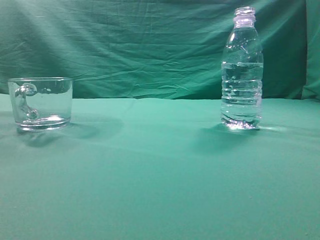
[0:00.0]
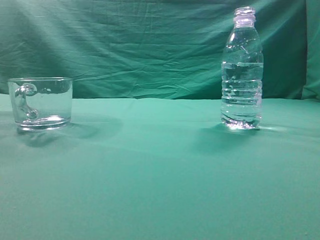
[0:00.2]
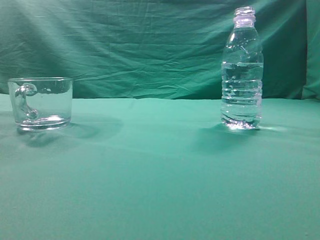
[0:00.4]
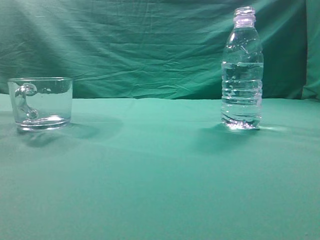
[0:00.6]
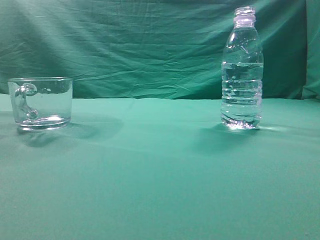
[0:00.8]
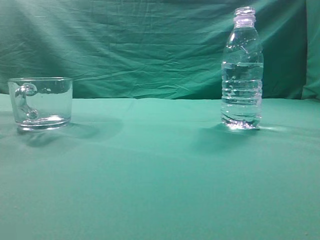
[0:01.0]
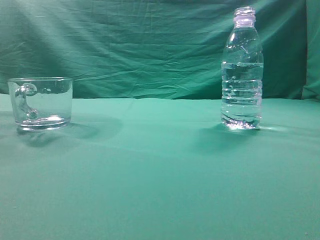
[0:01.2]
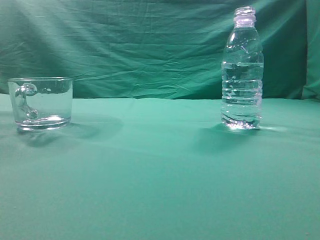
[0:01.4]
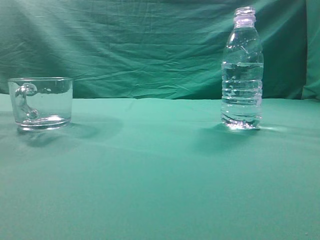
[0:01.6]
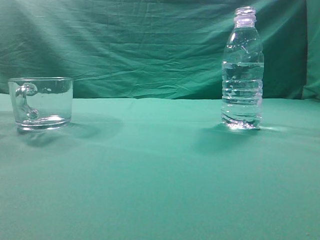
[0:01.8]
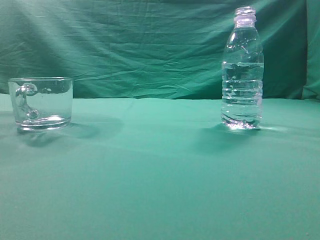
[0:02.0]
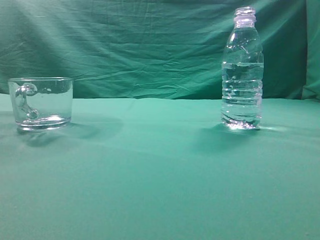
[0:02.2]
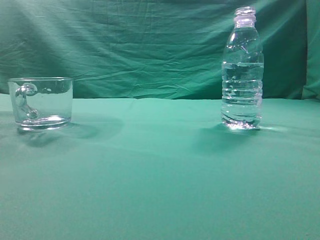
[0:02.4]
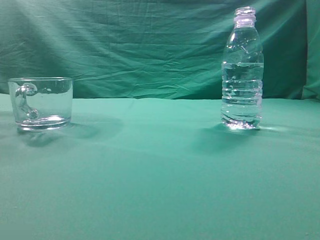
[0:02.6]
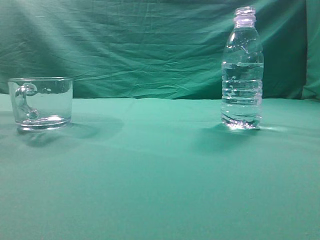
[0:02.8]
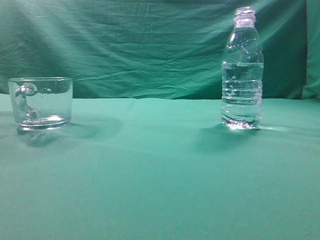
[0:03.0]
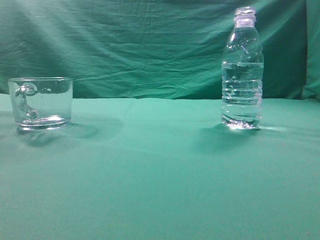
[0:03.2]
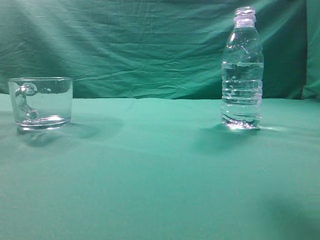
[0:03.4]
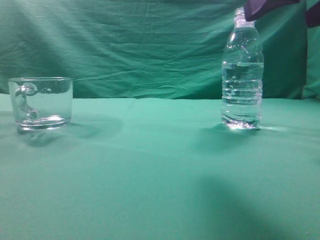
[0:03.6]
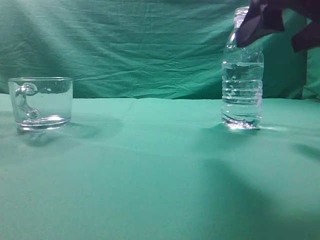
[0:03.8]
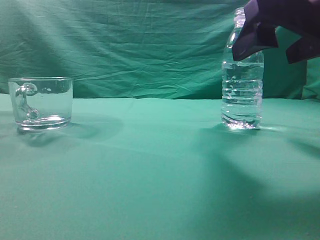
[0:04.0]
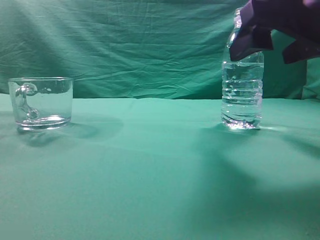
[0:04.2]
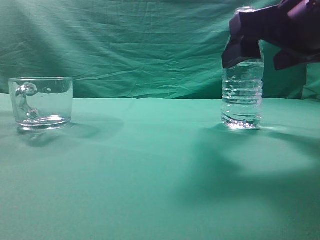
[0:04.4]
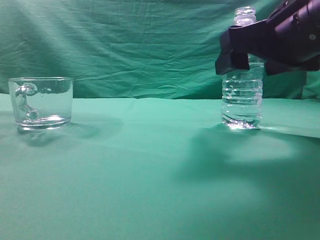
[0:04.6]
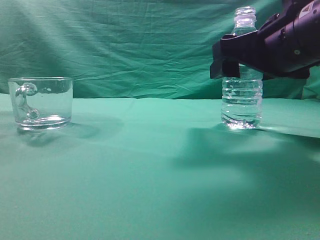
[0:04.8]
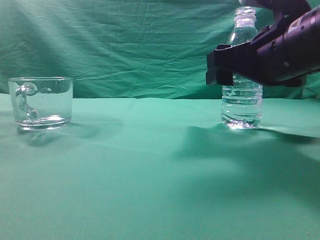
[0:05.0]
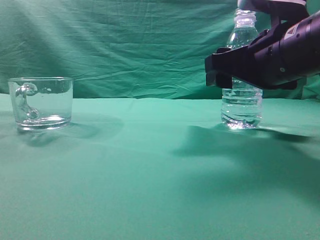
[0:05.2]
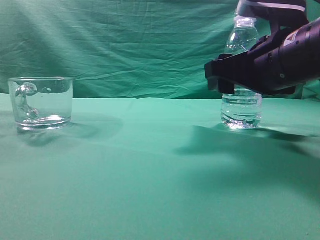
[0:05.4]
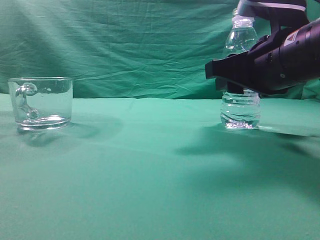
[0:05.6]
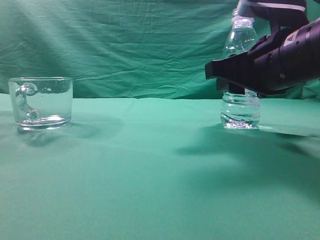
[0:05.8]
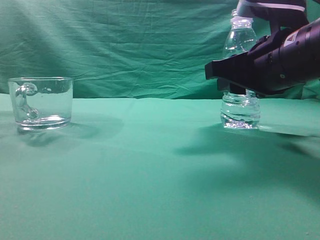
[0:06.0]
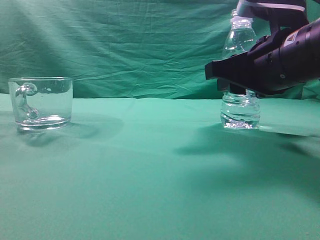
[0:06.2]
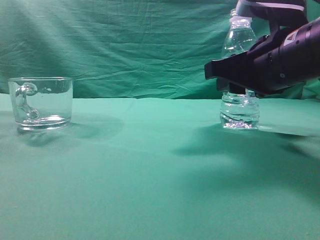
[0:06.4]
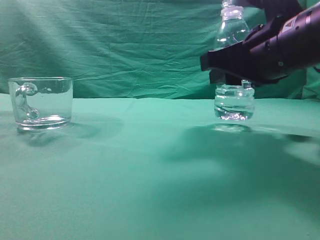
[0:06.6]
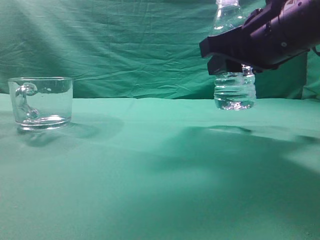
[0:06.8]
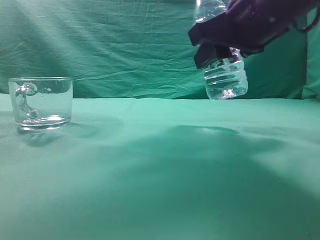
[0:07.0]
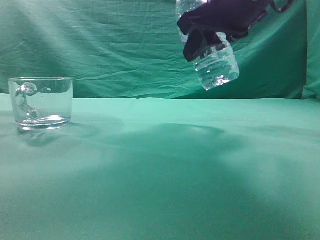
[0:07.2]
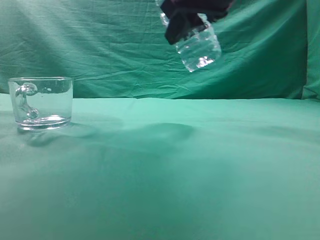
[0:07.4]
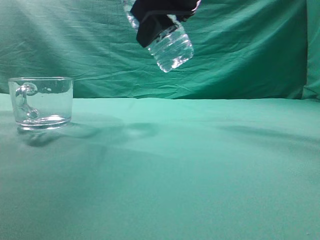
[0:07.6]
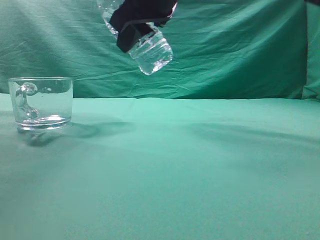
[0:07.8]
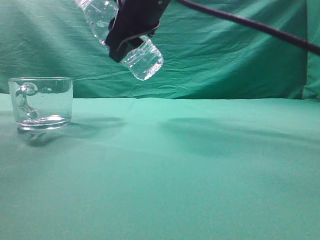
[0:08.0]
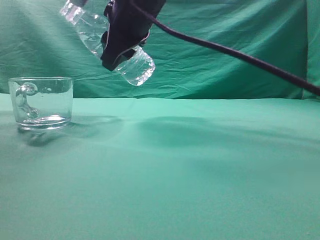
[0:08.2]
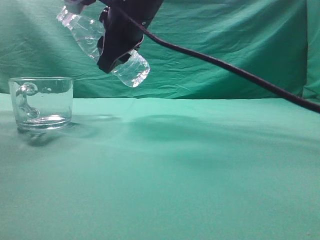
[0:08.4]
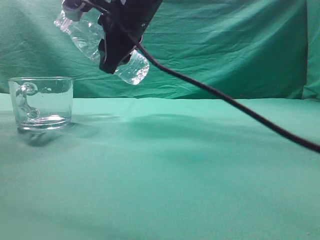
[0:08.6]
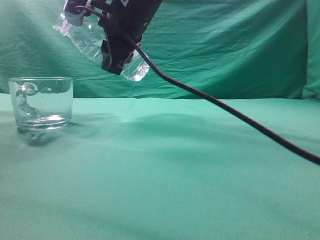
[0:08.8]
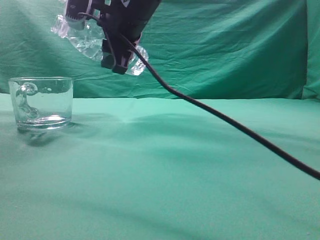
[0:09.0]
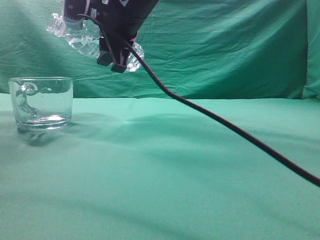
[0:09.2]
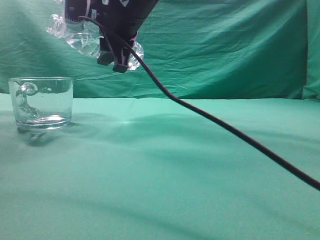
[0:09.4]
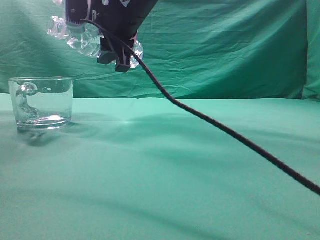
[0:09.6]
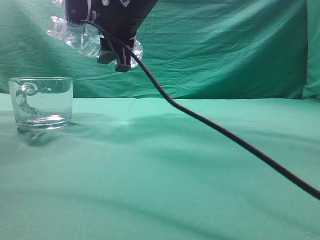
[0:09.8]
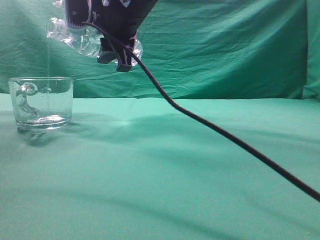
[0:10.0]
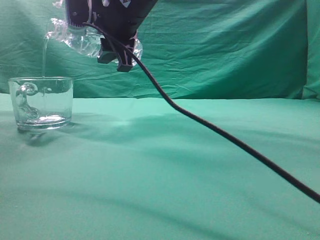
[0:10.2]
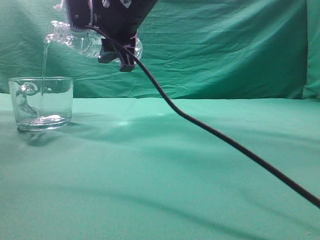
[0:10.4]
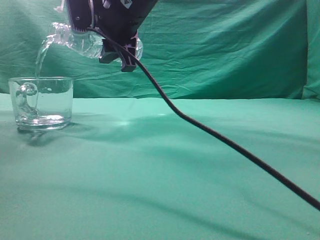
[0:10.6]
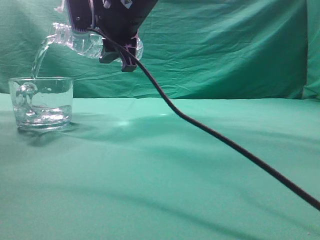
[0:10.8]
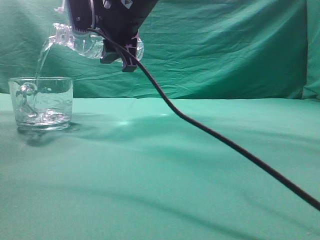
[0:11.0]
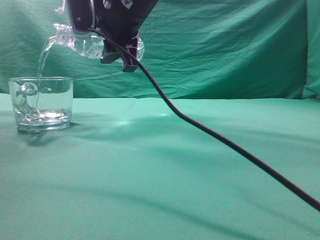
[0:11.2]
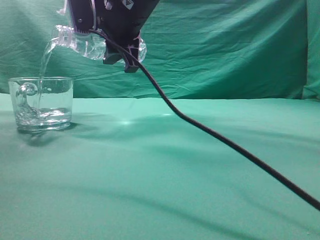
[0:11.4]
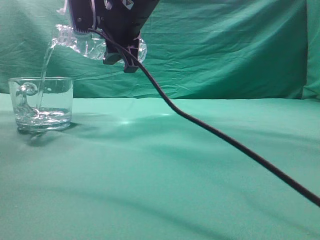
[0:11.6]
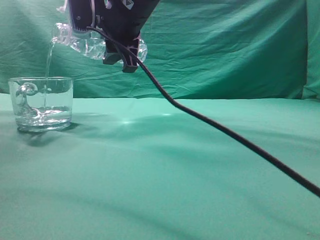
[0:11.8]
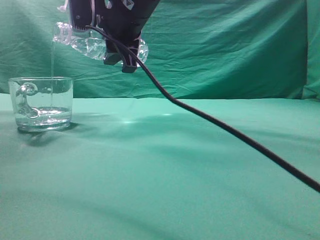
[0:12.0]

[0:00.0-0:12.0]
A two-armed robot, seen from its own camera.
Task of the whole recording: pick up the water bottle and pour the water in it into the glass.
Step, 0:00.0 to 0:06.8: Grasp the mineral water bottle.
0:03.0 to 0:04.4: The right gripper heads forward, downward and to the left, covering about 15 cm, and opens its fingers.
0:04.4 to 0:06.0: The right gripper moves approximately 5 cm, and closes.
0:06.0 to 0:07.6: The right gripper travels upward and to the left by approximately 15 cm.
0:07.6 to 0:09.0: The right gripper goes approximately 10 cm to the left and forward.
0:09.0 to 0:10.4: The grippers move only a little.
0:10.4 to 0:12.0: Both grippers stay about where they are.

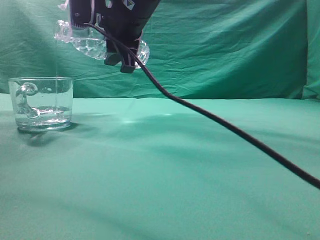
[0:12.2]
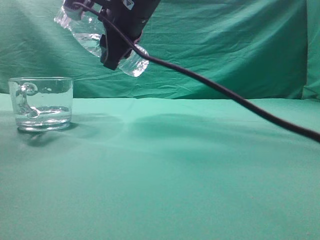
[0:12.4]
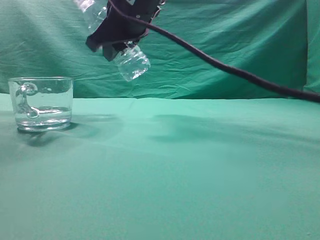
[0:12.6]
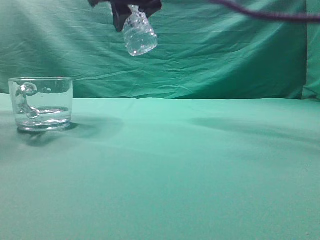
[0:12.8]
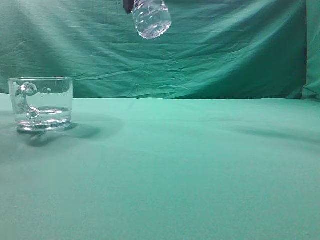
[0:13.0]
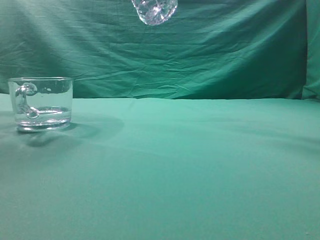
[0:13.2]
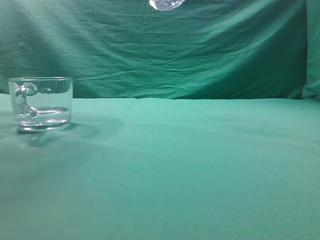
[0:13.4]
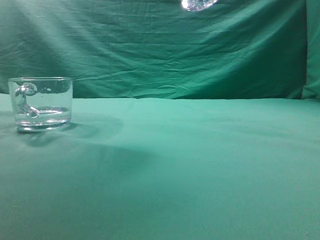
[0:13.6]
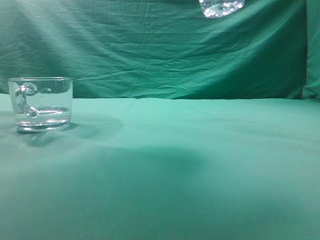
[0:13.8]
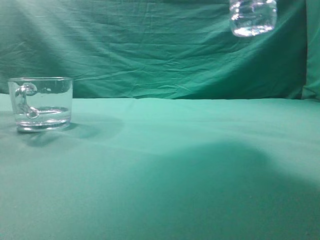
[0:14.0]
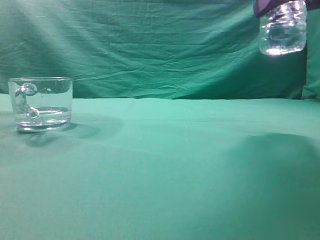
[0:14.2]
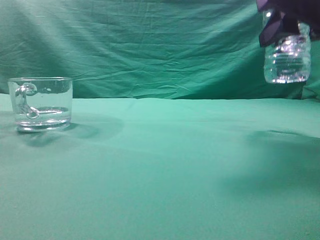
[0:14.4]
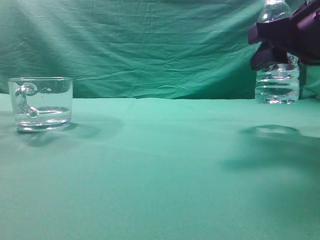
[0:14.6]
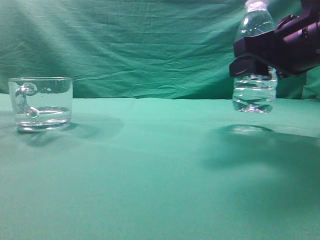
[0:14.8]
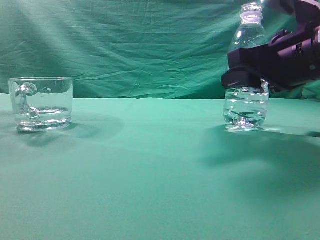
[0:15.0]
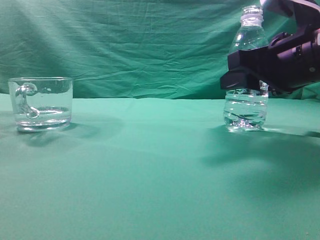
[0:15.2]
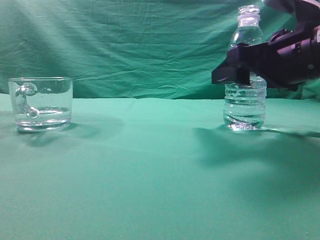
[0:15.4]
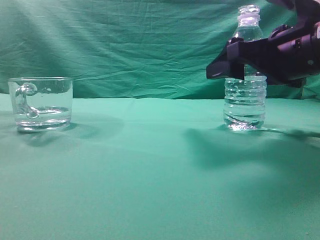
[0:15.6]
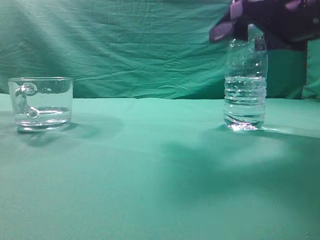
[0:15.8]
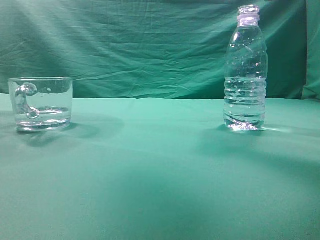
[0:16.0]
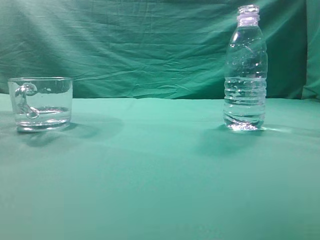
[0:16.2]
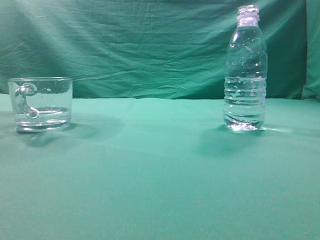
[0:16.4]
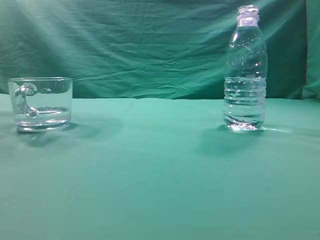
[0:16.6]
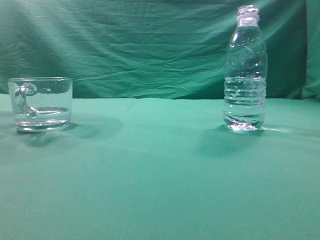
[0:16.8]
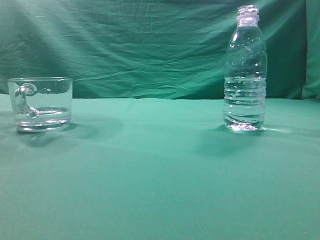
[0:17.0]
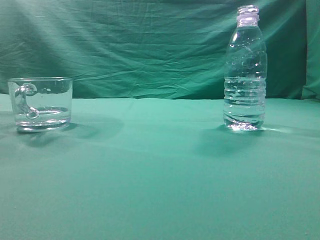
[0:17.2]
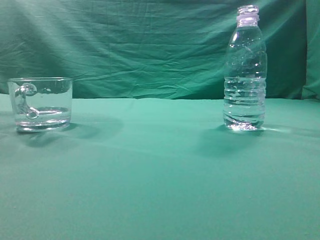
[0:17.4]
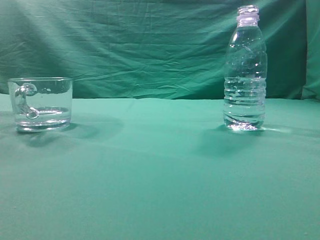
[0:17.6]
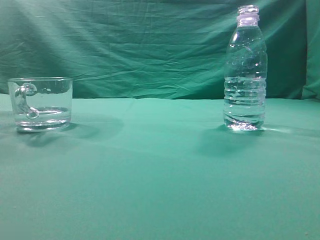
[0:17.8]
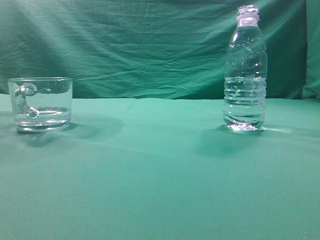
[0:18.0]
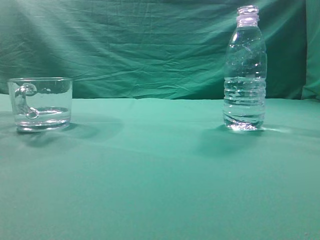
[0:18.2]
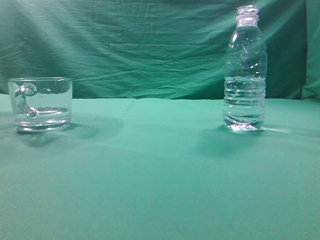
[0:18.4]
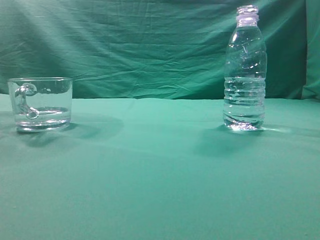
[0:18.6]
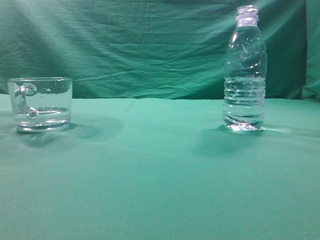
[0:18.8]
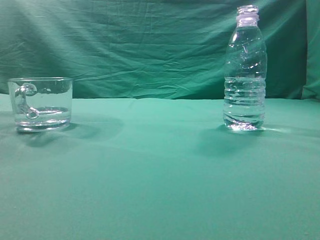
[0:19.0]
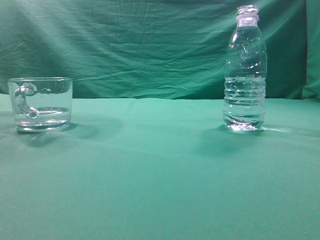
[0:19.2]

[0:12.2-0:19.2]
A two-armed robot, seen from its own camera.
Task of the whole recording: pick up the water bottle and pour the water in it into the glass.
0:12.2 to 0:13.6: The right gripper goes some 20 cm to the right, upward and backward.
0:13.6 to 0:15.0: The right gripper travels downward and to the right by roughly 25 cm.
0:15.0 to 0:16.4: The right gripper is displaced upward and backward by approximately 20 cm, and opens and closes again.
